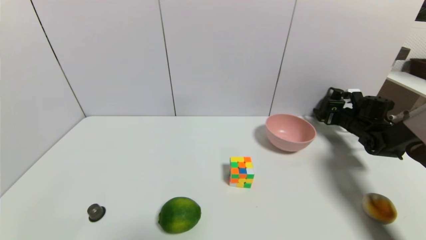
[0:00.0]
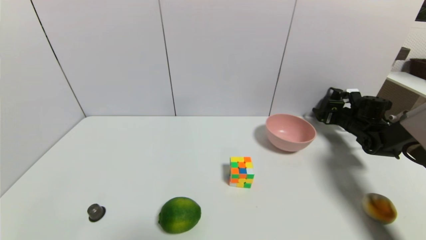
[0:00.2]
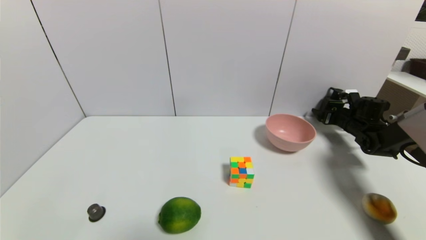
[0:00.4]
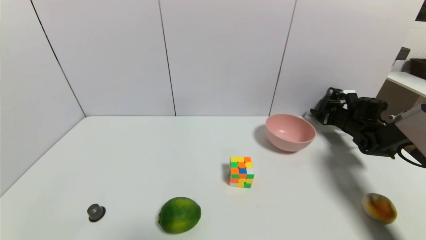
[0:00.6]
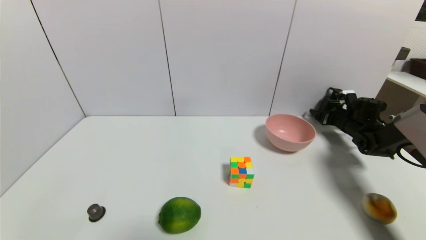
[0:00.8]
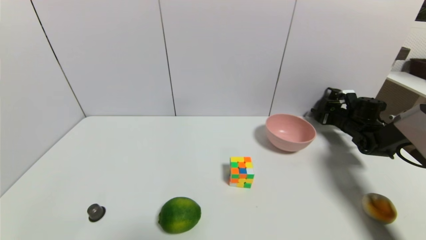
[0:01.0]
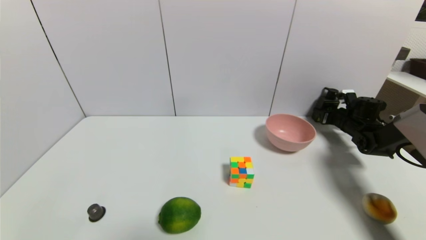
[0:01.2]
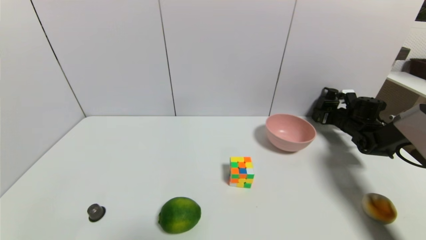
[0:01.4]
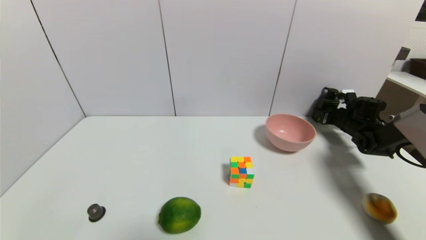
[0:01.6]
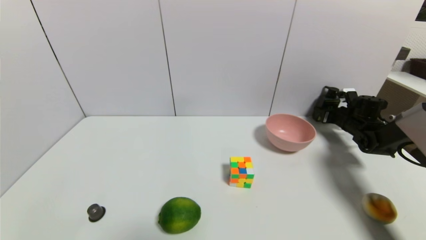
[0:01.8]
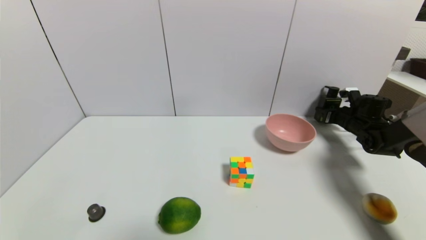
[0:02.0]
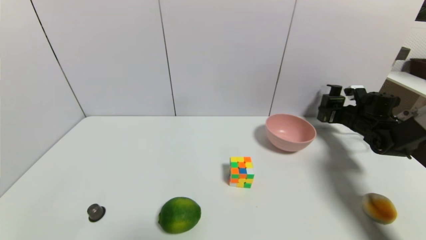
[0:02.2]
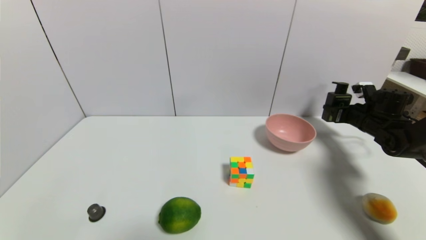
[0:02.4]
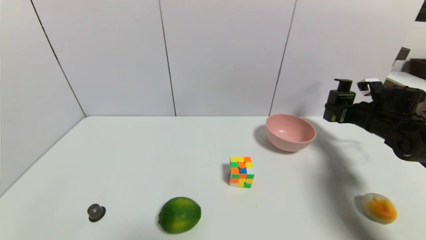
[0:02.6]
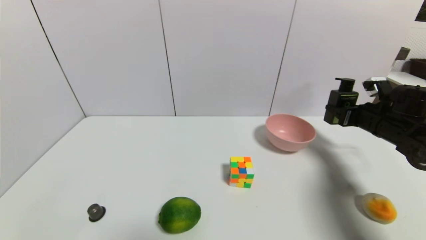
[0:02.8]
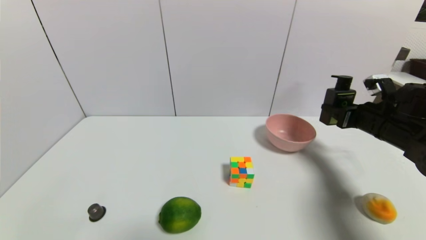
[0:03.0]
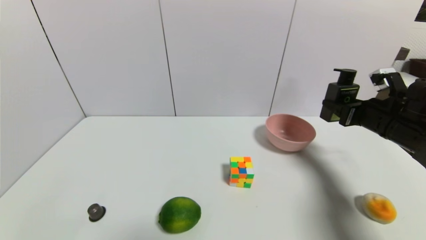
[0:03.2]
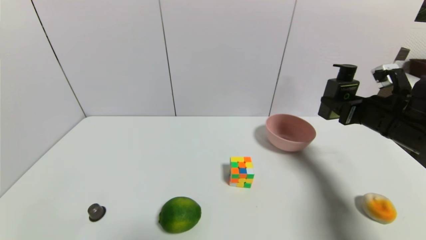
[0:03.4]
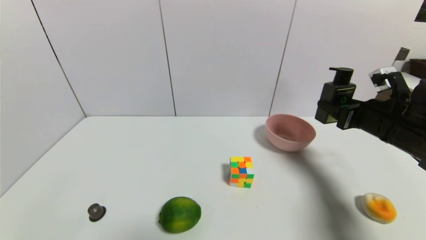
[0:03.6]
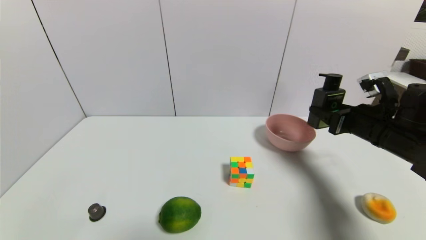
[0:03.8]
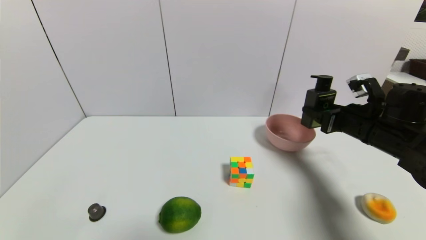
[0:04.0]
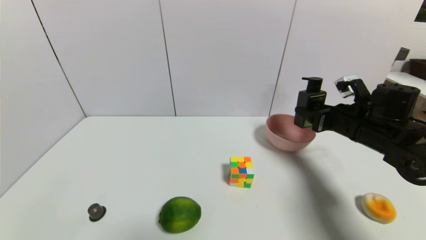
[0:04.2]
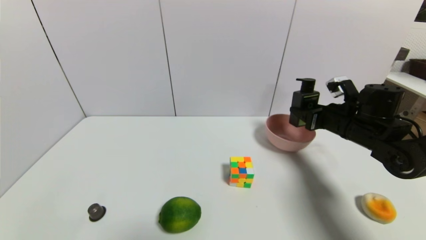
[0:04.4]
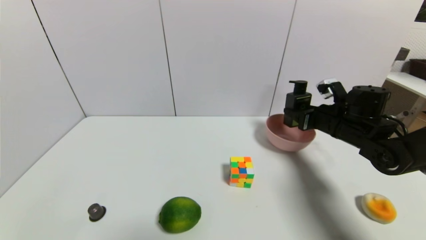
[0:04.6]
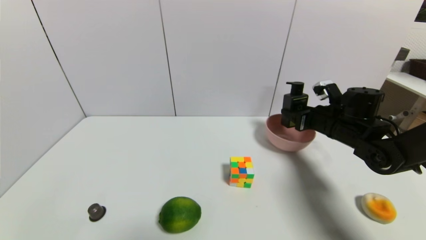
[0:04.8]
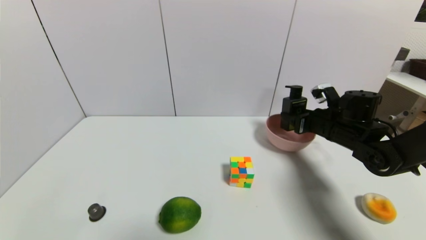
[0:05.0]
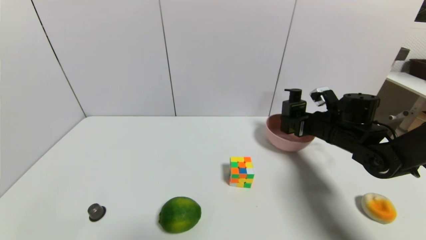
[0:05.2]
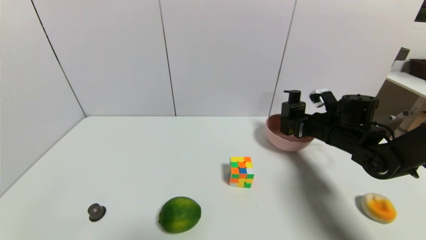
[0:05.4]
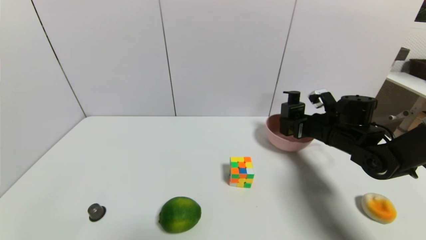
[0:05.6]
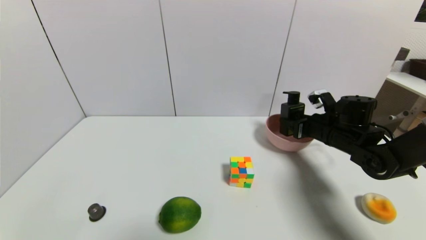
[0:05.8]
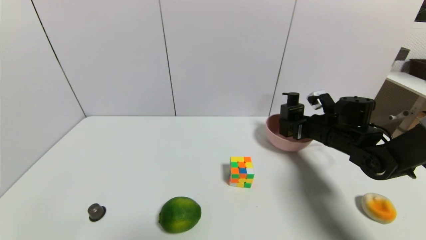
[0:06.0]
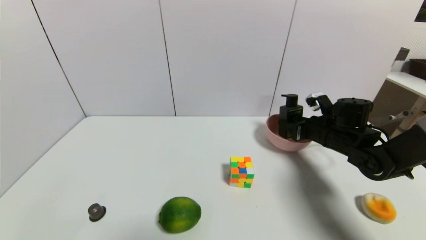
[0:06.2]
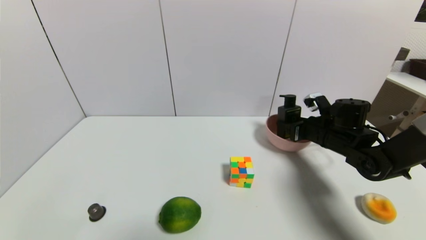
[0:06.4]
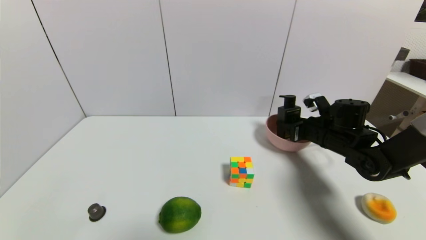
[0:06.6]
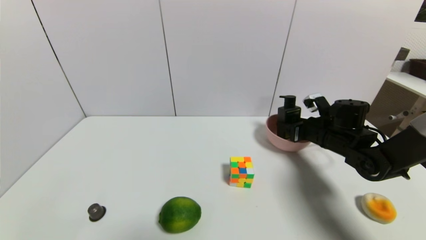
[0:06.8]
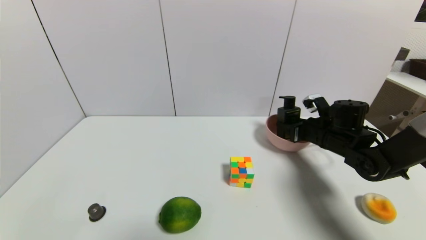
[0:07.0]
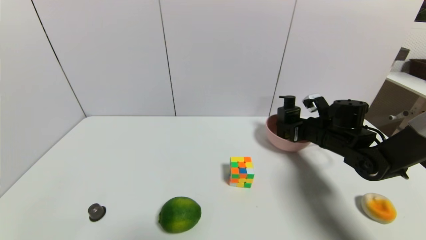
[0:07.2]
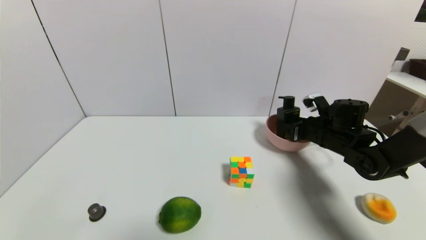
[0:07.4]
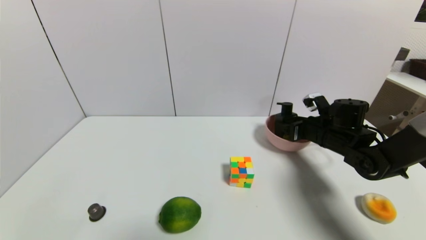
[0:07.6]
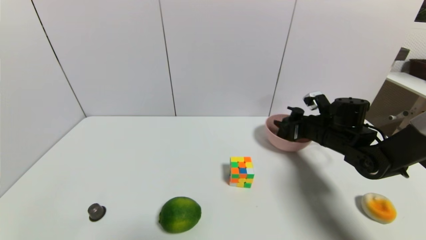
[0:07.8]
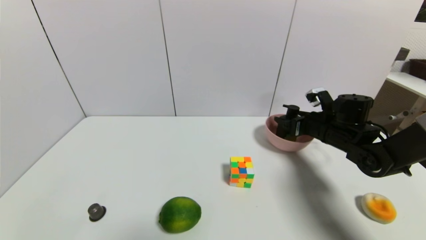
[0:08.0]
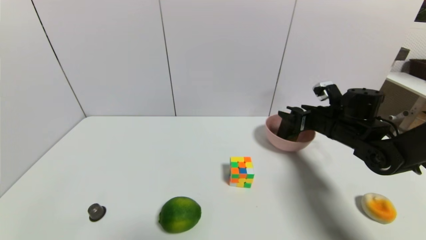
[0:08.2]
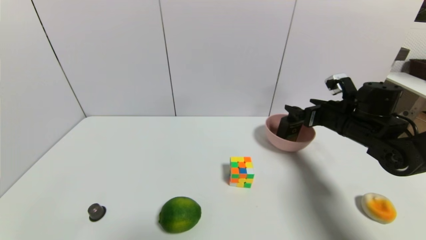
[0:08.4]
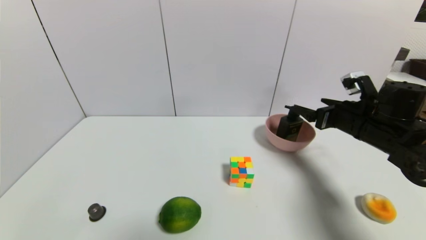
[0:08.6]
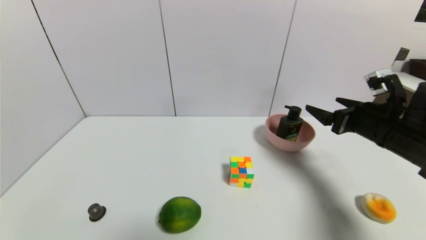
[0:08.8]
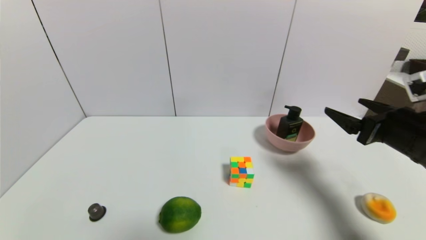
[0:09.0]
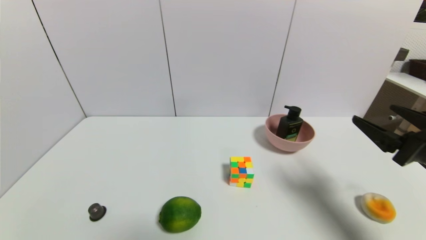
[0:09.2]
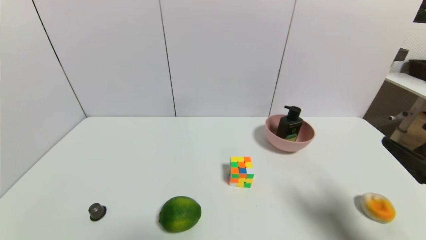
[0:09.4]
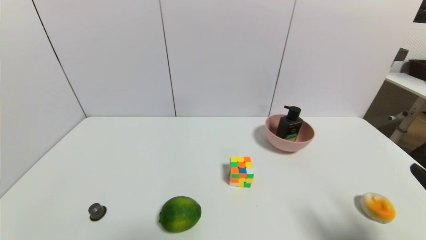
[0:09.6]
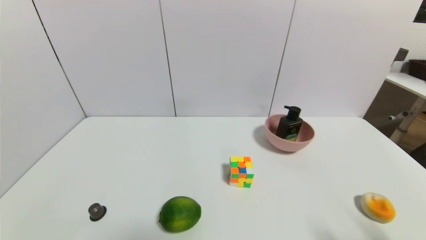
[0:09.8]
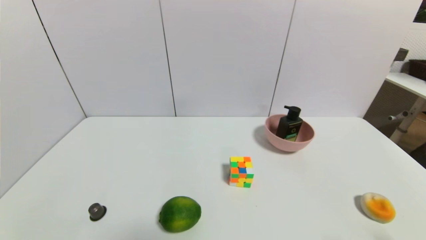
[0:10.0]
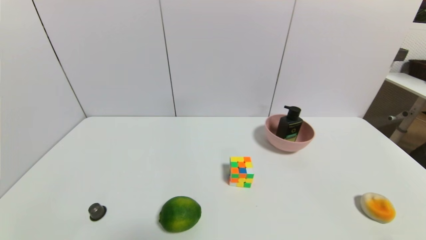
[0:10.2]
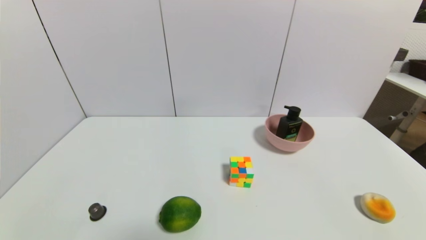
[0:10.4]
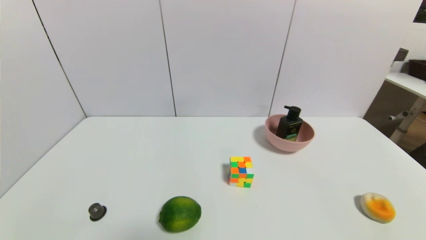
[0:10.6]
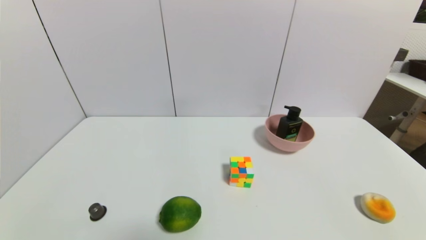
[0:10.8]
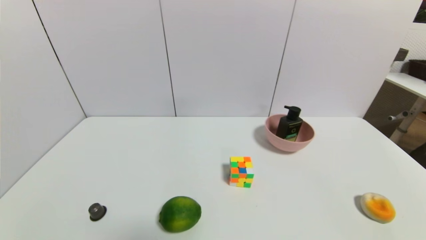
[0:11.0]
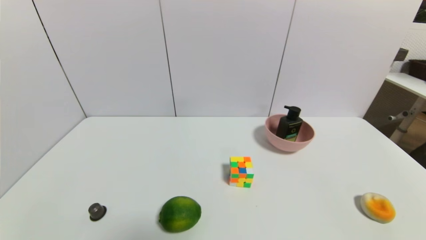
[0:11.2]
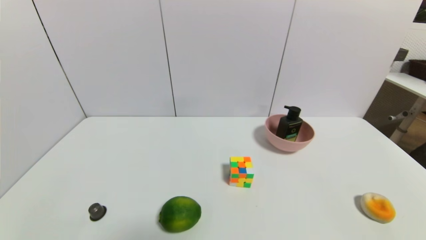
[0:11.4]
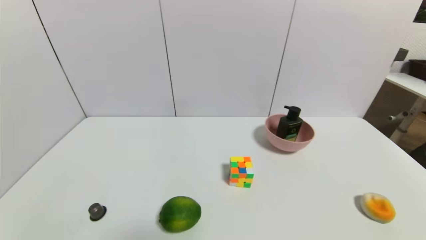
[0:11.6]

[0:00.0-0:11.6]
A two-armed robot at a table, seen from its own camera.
Task of the whole recording: use a gripper to pick the target object and place on the pink bowl.
Step, 0:01.6 to 0:08.2: Place the hard facial cleanser on the pink bowl with the right gripper.
0:00.0 to 0:01.4: The right gripper closes its fingers.
0:01.4 to 0:02.8: The right gripper shifts roughly 15 cm backward and upward.
0:02.8 to 0:04.4: The right gripper heads to the left, covering roughly 10 cm.
0:04.4 to 0:07.2: The grippers stay close to where they were, moving slightly.
0:07.2 to 0:08.8: The right gripper travels backward and upward by roughly 10 cm, and opens.
0:08.8 to 0:10.2: The right gripper shifts roughly 30 cm backward.
